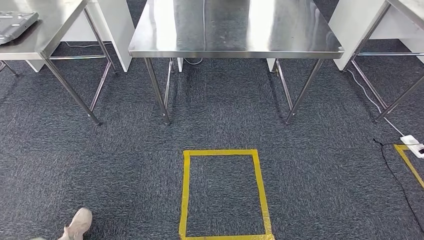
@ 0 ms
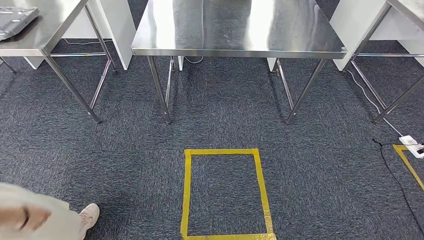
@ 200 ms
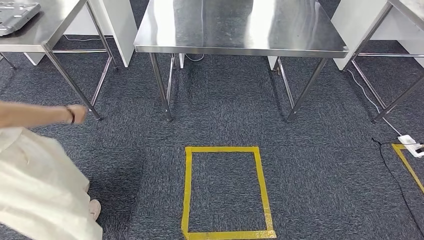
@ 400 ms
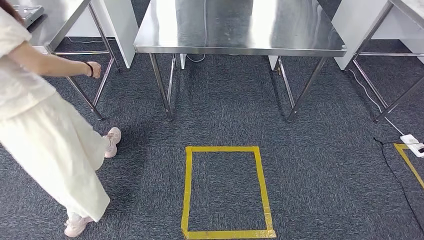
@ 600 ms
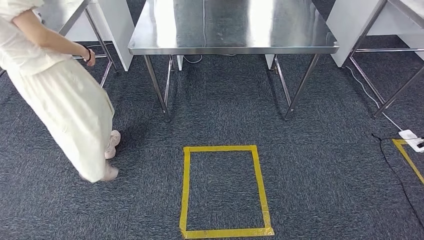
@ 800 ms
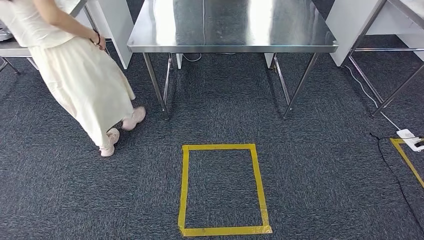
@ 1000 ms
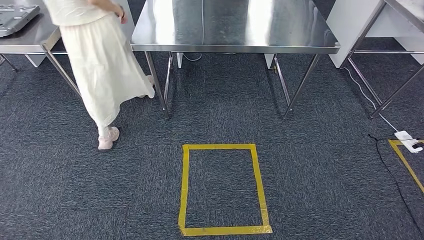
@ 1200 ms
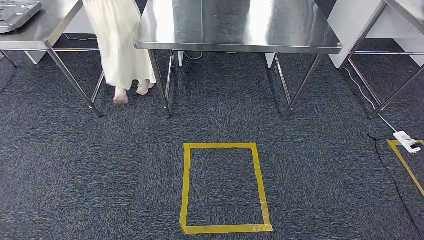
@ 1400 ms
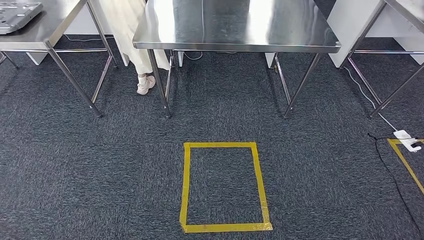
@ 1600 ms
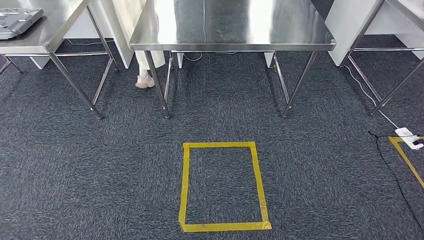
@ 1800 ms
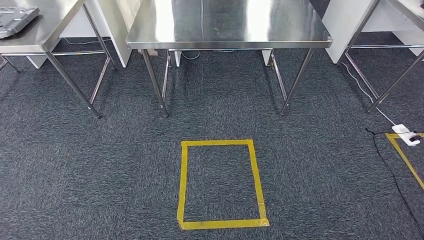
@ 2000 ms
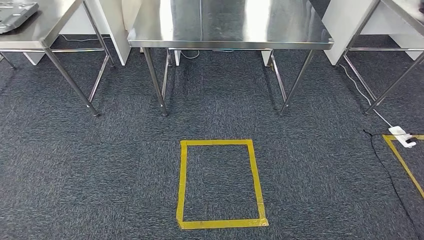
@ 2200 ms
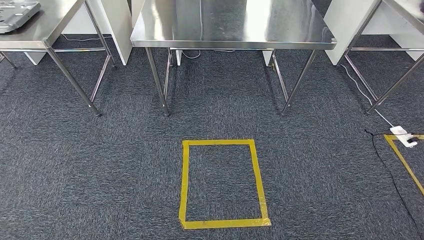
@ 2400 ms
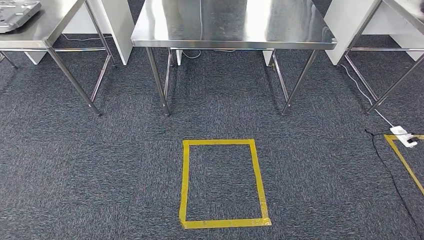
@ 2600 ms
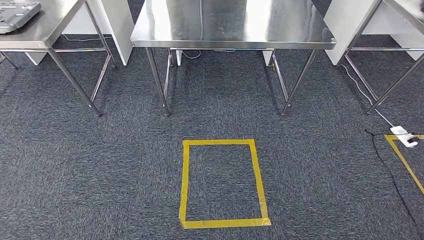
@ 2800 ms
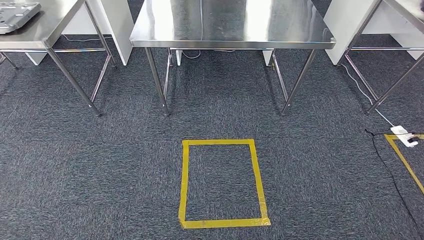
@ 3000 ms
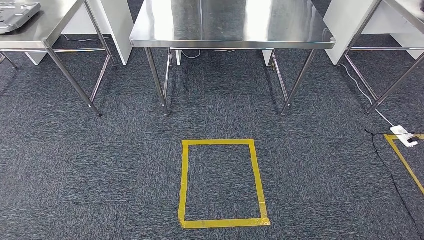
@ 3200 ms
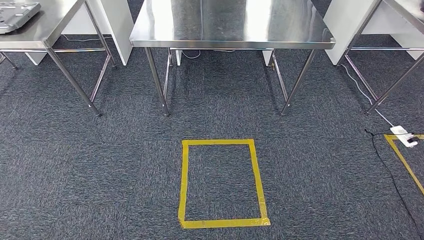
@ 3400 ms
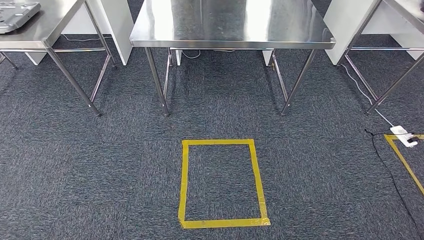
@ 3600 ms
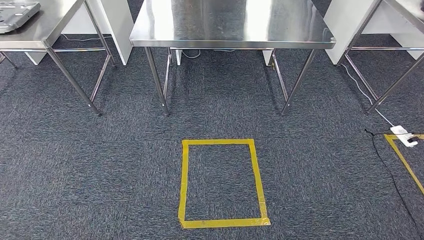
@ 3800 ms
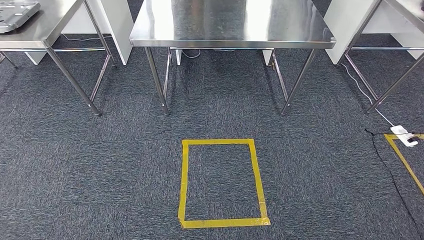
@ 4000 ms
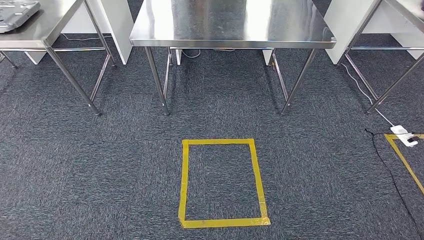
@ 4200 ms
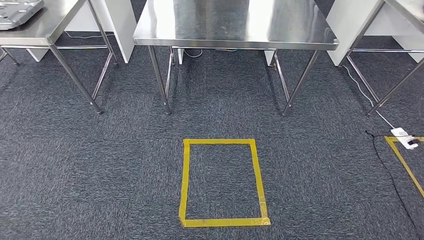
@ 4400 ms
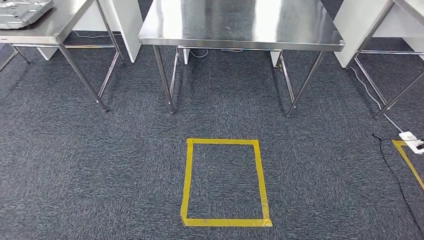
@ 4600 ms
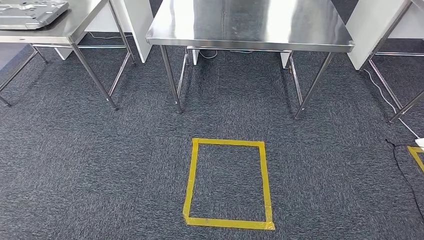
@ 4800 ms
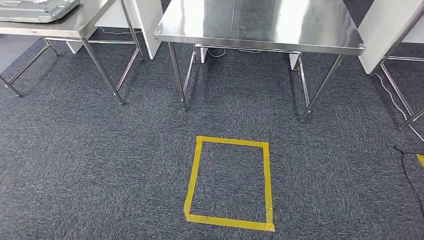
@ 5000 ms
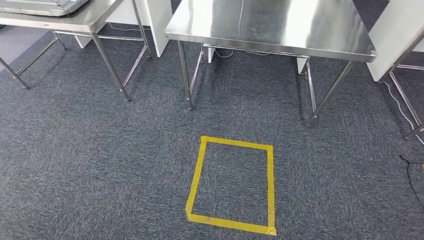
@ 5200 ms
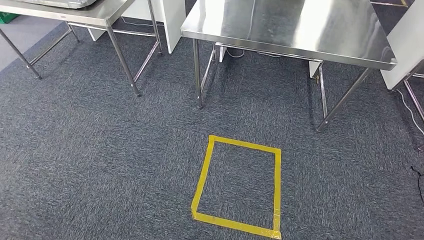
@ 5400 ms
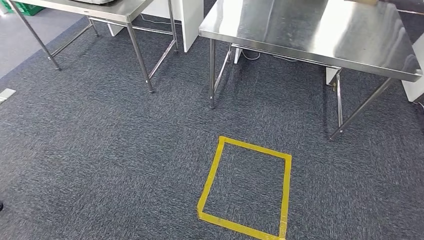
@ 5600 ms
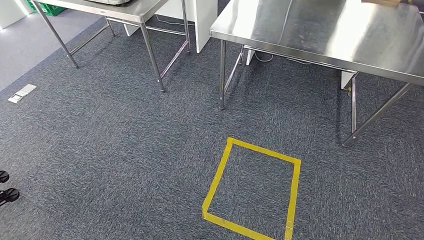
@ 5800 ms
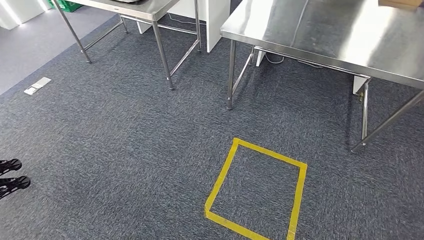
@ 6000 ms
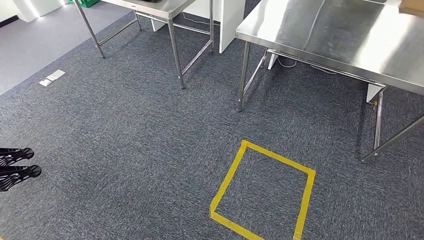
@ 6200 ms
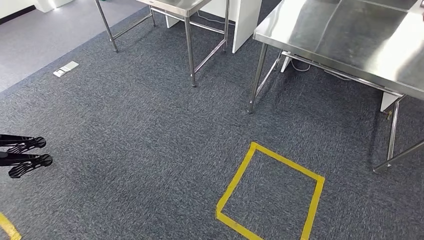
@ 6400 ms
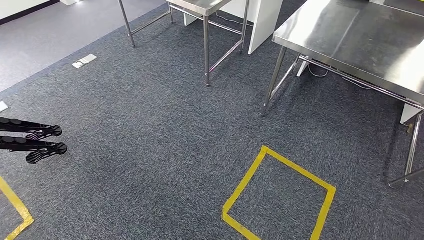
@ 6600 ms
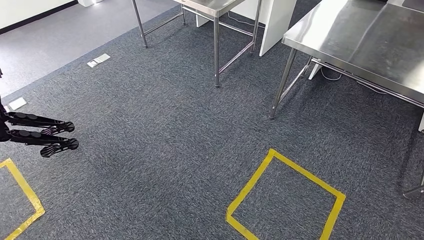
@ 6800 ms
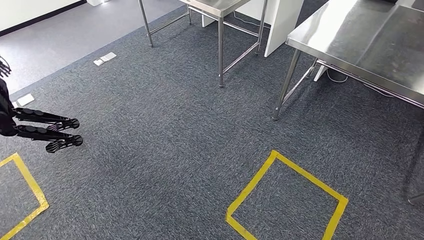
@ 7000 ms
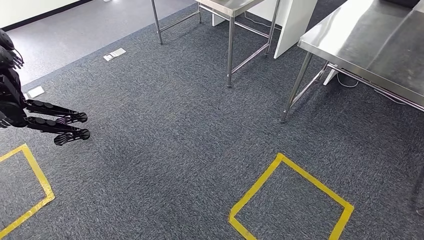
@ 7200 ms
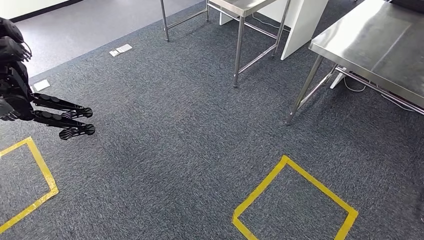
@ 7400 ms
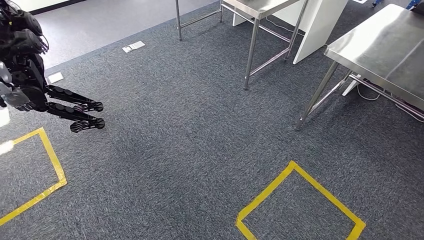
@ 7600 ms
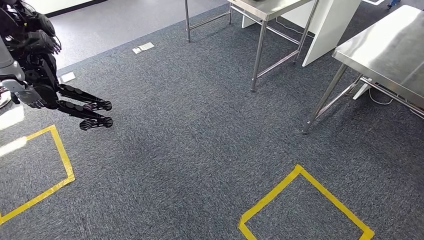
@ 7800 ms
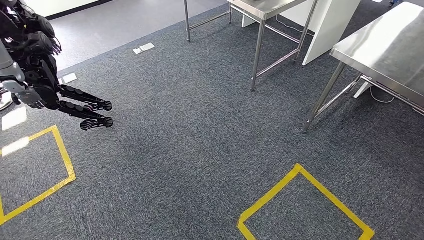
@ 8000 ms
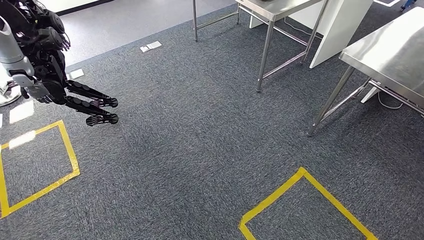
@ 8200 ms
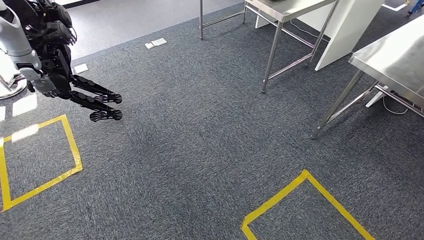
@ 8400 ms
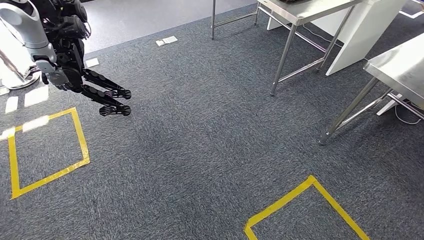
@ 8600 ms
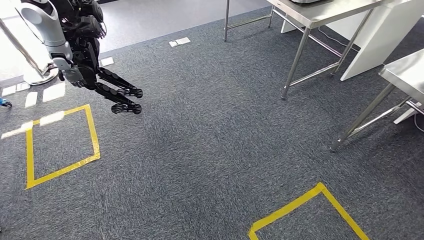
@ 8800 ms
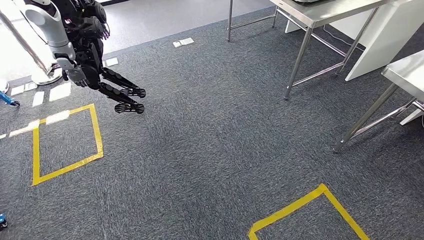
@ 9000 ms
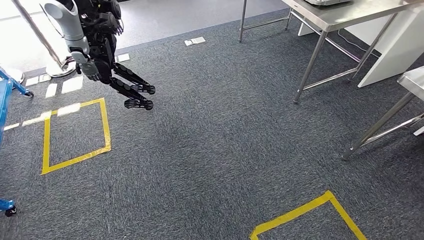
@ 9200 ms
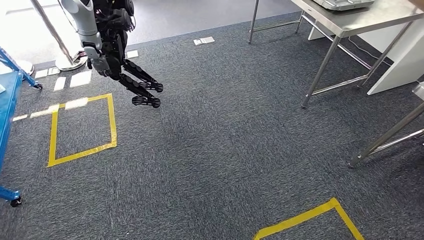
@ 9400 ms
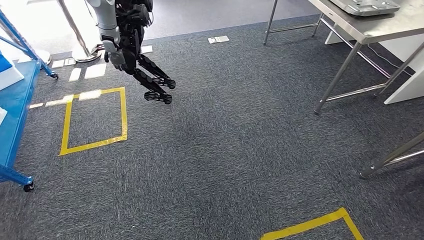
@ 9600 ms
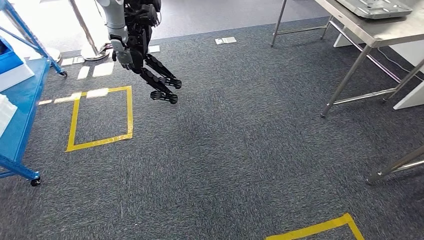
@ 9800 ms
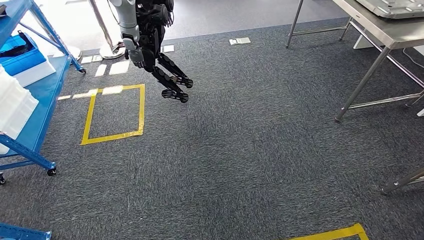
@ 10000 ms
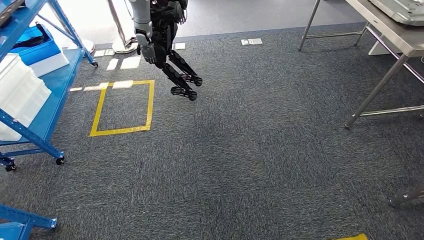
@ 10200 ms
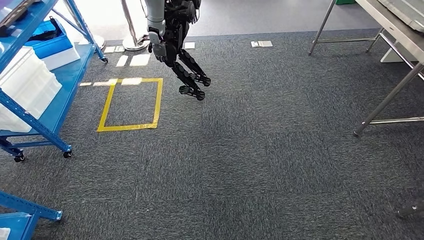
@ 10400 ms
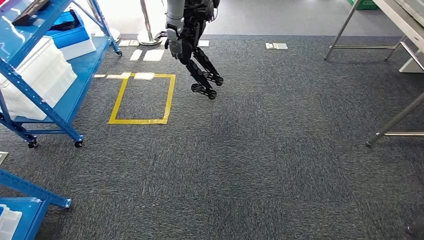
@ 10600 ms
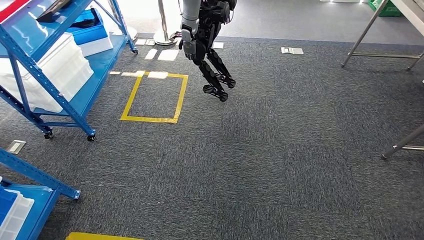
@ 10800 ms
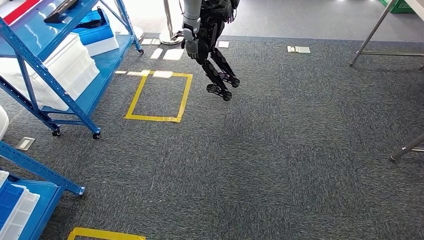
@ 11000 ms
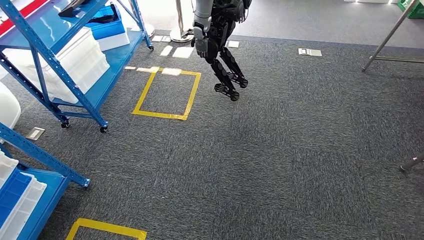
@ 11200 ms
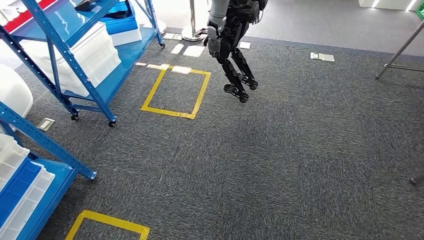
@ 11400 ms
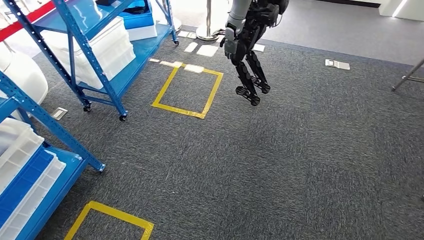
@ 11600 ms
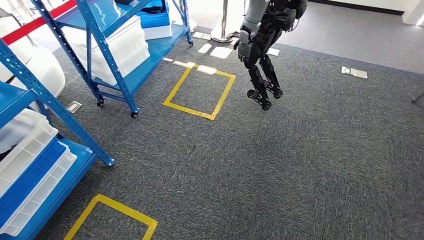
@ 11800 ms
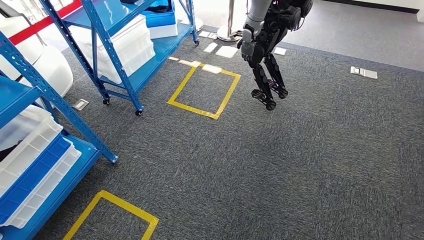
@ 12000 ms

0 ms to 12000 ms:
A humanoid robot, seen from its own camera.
3000 ms to 4400 ms: The hands stay close to where they were, moving slightly.

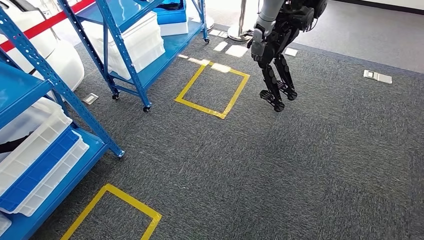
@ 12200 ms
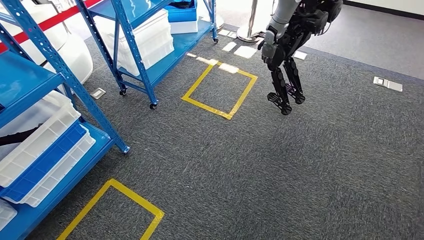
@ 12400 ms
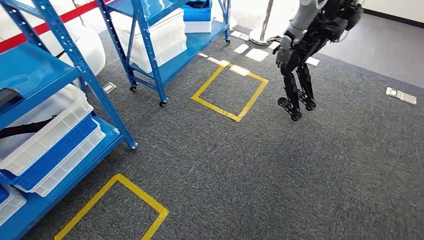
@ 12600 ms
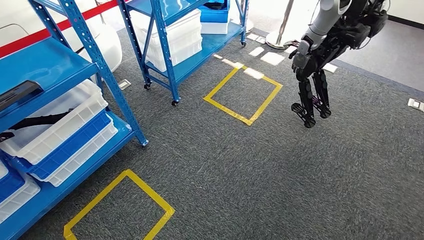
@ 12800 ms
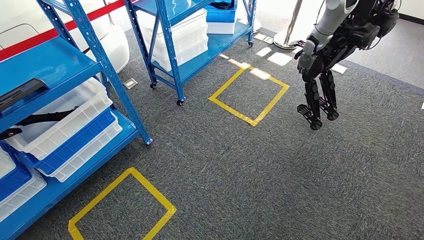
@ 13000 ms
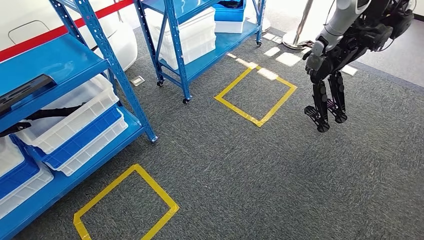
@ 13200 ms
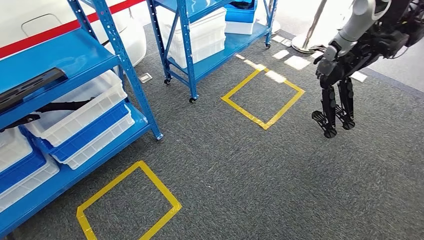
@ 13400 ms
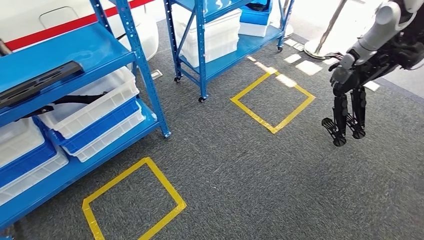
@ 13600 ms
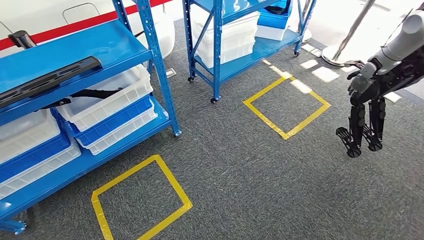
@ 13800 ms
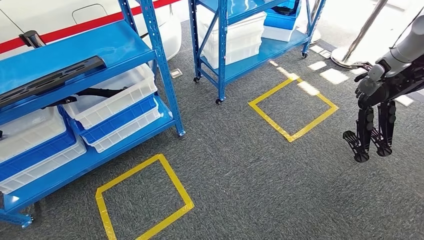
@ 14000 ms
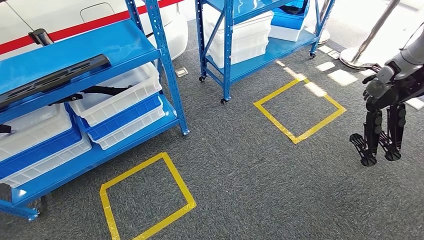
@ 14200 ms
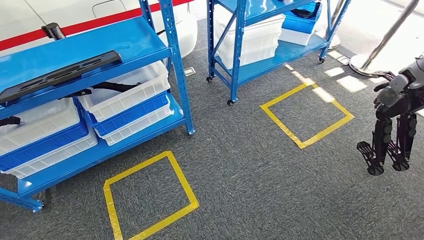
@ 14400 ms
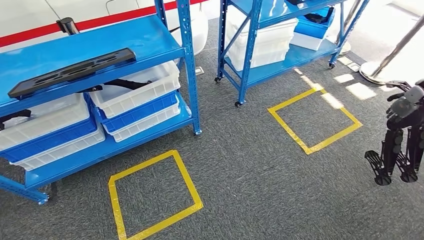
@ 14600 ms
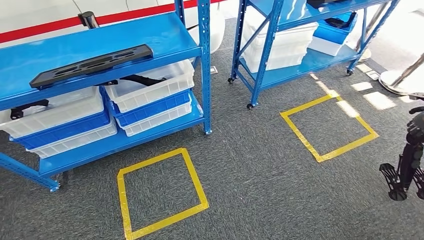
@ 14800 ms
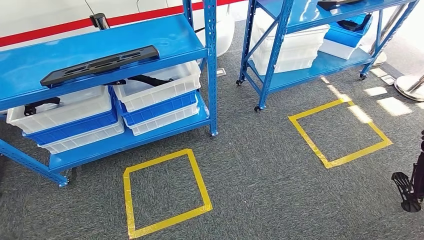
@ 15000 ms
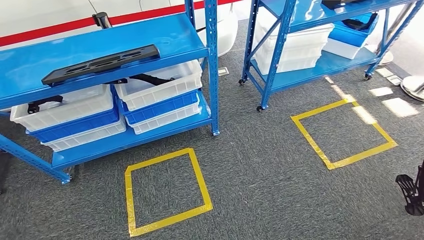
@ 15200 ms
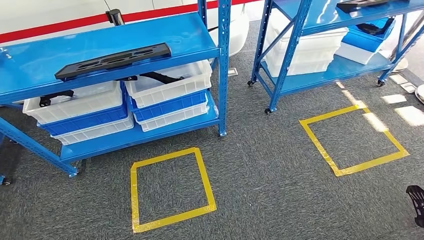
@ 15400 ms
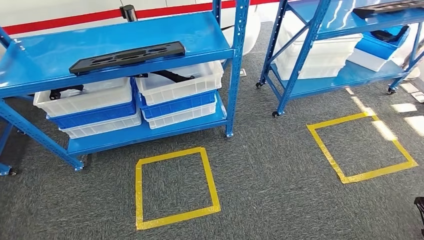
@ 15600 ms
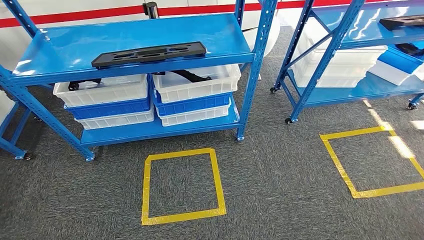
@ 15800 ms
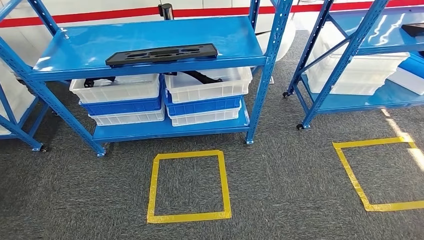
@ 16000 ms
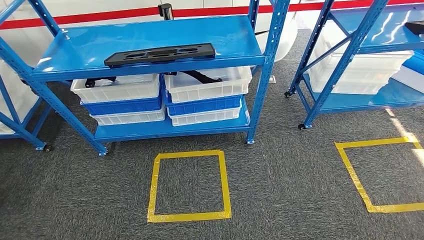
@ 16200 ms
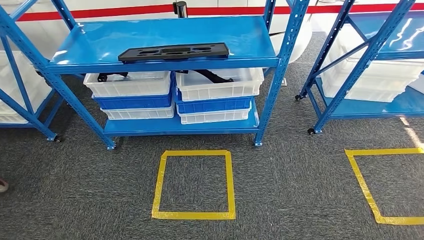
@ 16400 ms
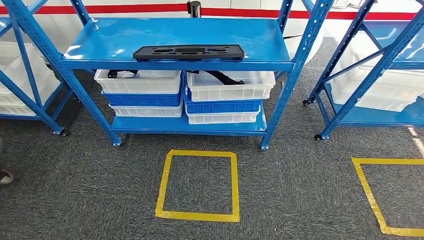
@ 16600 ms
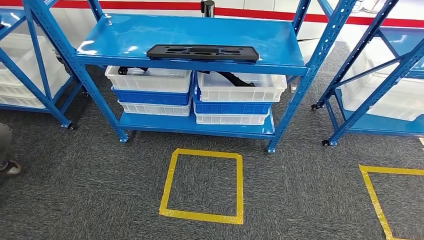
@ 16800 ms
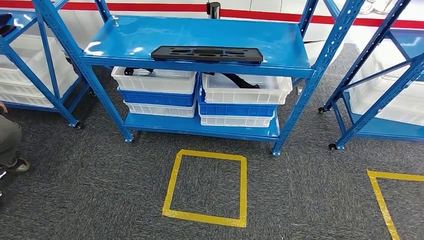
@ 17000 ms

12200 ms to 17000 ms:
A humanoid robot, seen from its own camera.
Step, 12200 ms to 17000 ms: Move to the initial position of the shelf.
